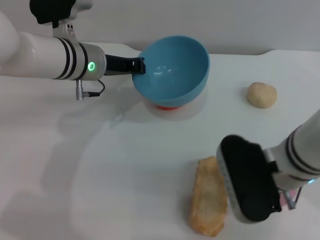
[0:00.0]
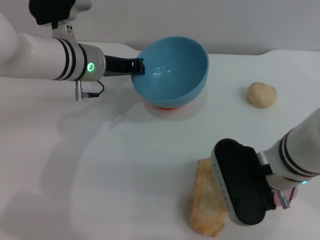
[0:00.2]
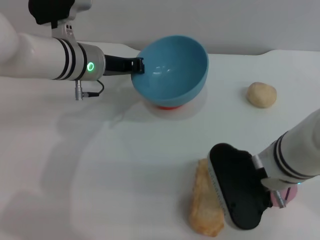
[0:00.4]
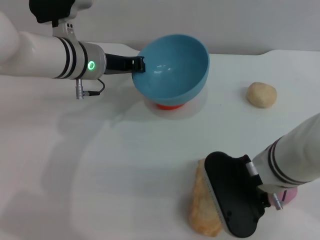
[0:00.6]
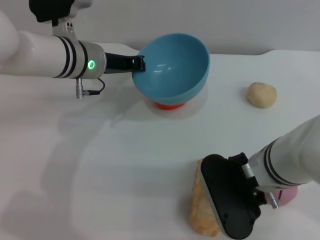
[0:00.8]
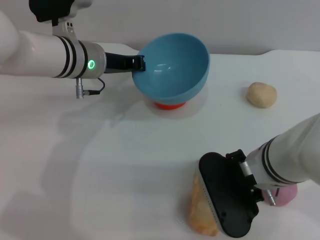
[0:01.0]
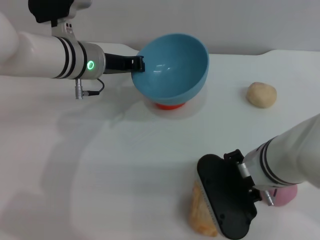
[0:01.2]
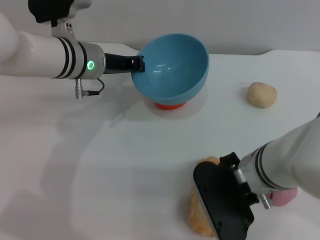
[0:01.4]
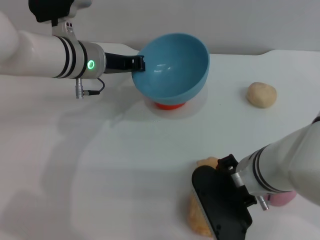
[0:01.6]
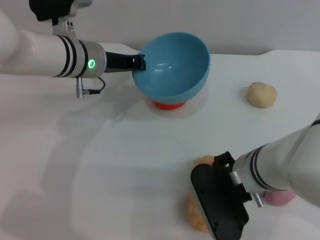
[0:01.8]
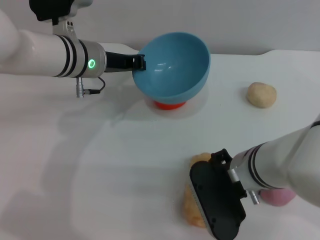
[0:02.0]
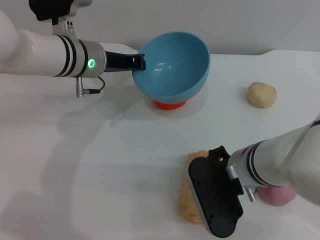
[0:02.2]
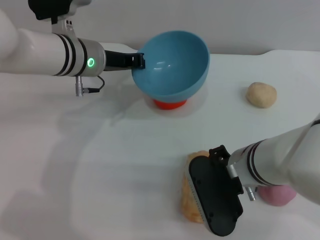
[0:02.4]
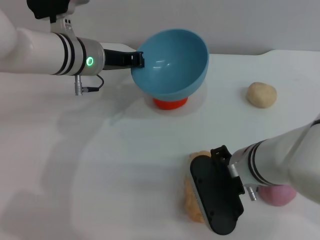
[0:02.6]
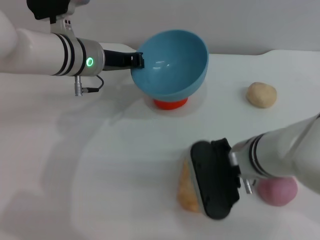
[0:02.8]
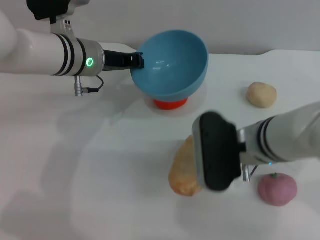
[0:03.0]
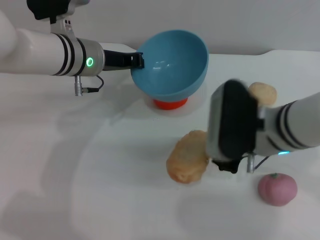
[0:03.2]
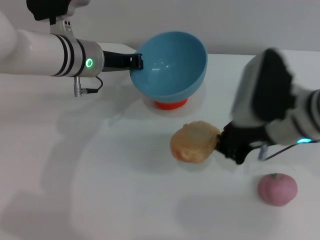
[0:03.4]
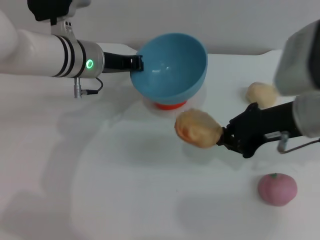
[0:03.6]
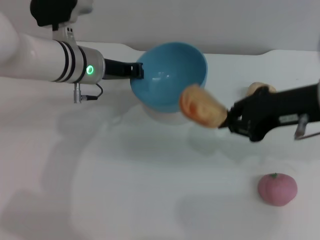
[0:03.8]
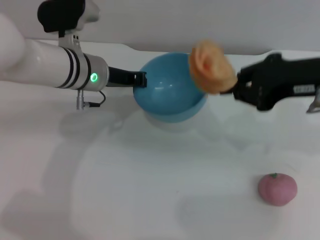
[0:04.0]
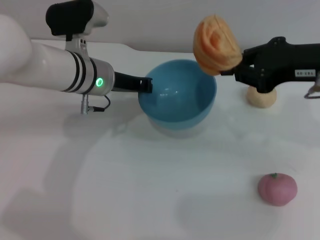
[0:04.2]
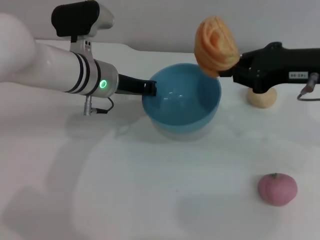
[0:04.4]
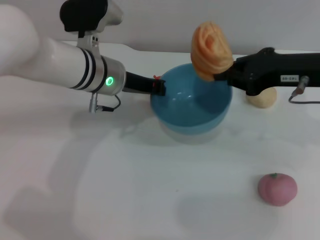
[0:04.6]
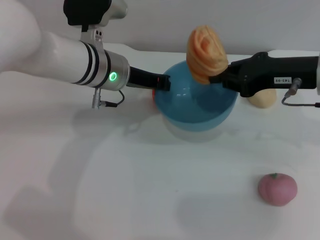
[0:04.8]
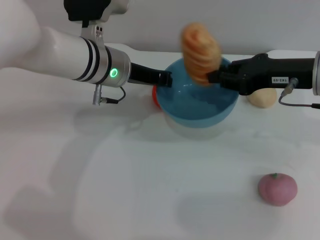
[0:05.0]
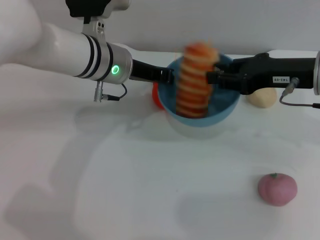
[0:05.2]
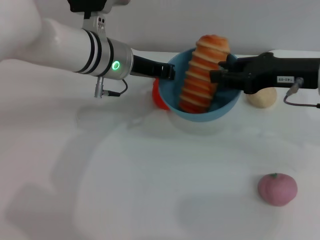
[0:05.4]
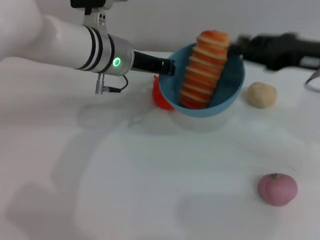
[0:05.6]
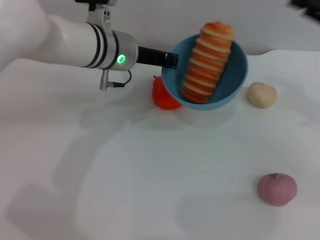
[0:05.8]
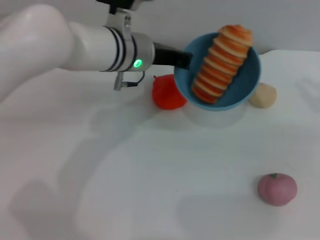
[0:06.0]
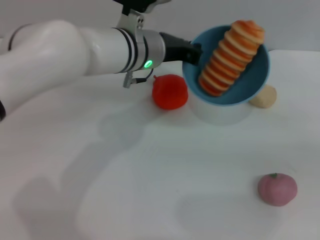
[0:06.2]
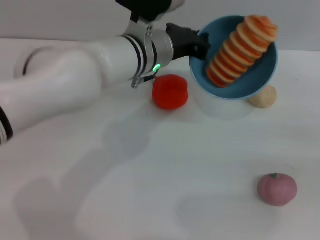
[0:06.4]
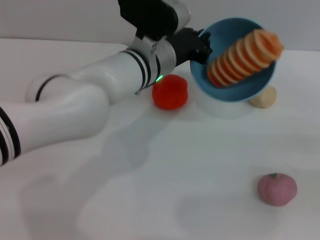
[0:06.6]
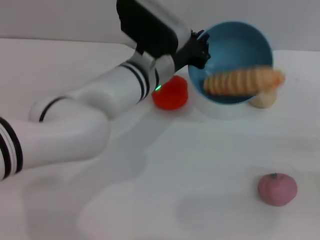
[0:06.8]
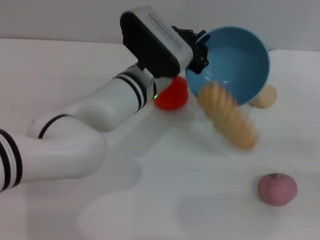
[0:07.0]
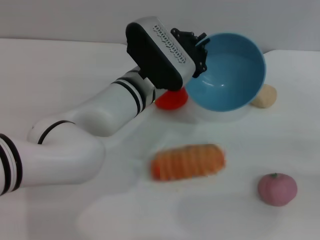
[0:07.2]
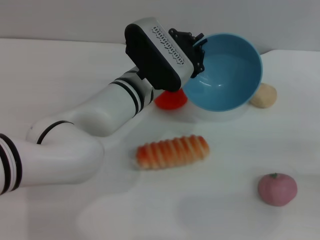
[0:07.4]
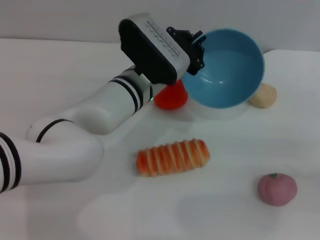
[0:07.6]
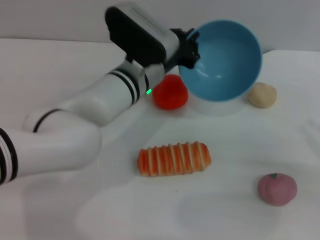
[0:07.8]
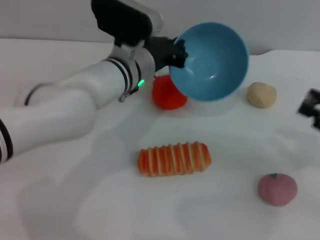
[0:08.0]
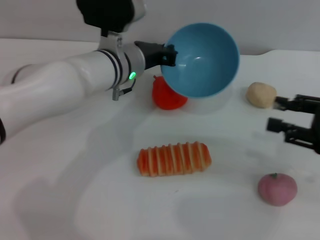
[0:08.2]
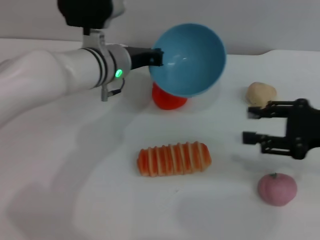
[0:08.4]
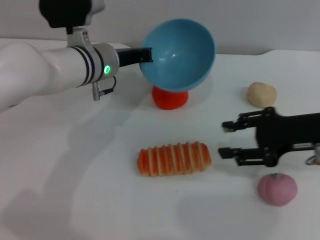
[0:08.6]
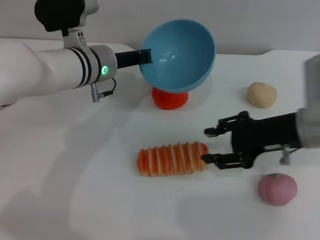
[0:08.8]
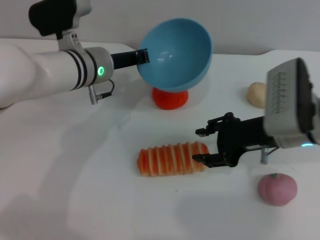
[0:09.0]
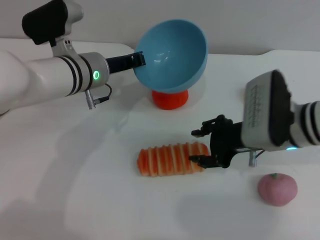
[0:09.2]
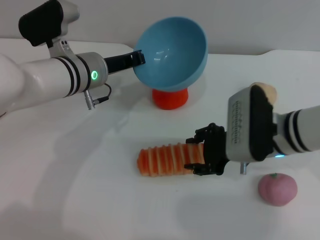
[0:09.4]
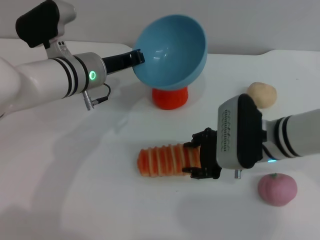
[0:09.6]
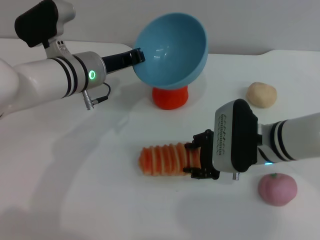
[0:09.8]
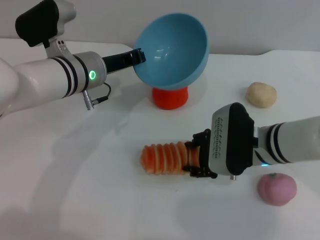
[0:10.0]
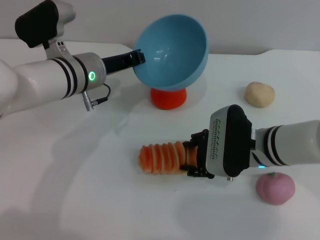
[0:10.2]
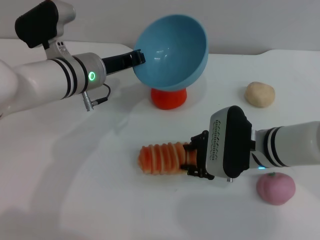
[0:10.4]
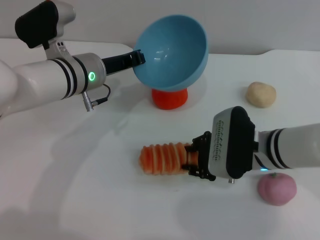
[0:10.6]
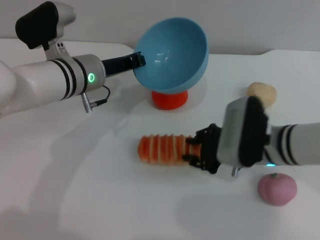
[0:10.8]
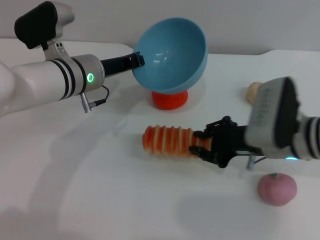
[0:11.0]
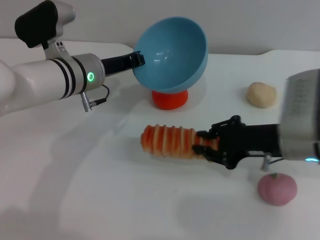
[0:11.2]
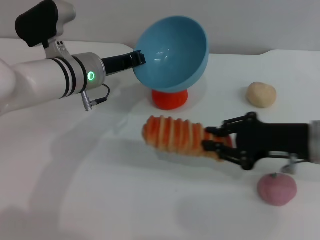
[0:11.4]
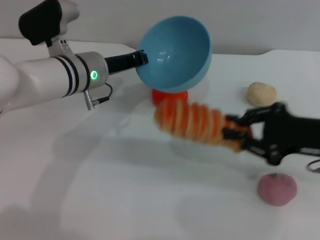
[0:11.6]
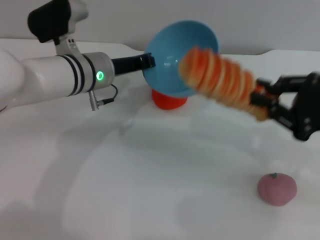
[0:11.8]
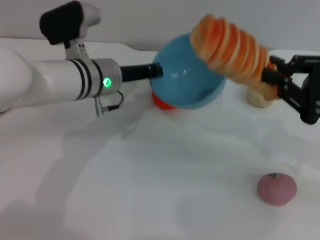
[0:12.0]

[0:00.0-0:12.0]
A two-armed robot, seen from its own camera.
Task of the whole recording: put the bread into the blue bowl and pour it out repeatedly.
Step, 0:00.0 to 0:03.6: Pick up the bread with the right gripper.
Step, 0:03.8 to 0:05.8: Place the bread into the bowl.
Step, 0:06.0 to 0:07.4: Pour the bread out of the bowl.
Step, 0:07.8 to 0:11.4: Pick up the bread with the right gripper.
0:00.0 to 0:01.6: There are only small adjustments of the grippers.
0:01.6 to 0:03.0: The right gripper closes its fingers.
0:03.0 to 0:04.4: The right gripper goes approximately 15 cm to the right and upward.
0:04.4 to 0:06.0: The left gripper is displaced to the right by approximately 5 cm. The right gripper goes some 15 cm to the right, and opens up.
0:06.0 to 0:07.6: The right gripper shifts some 10 cm downward and backward. Meanwhile the left gripper is displaced downward by about 5 cm.
0:07.6 to 0:09.0: The left gripper moves to the left, approximately 10 cm. Meanwhile the right gripper goes some 25 cm to the left and forward, and opens its fingers.
0:09.0 to 0:10.4: The right gripper moves downward, approximately 5 cm.
0:10.4 to 0:12.0: The right gripper travels to the right and upward by approximately 20 cm, and closes its fingers.

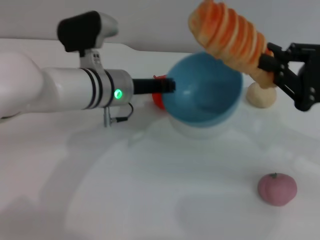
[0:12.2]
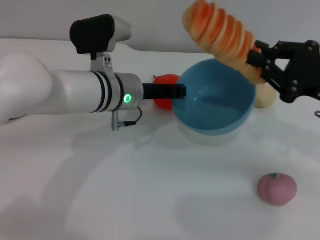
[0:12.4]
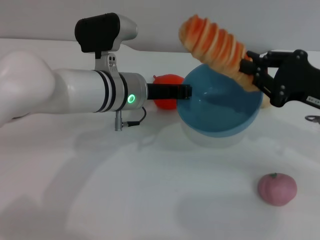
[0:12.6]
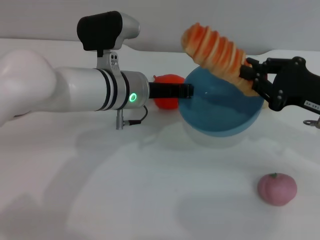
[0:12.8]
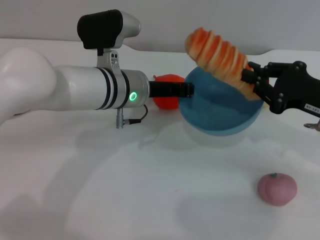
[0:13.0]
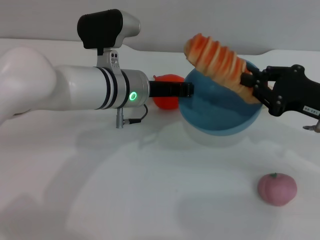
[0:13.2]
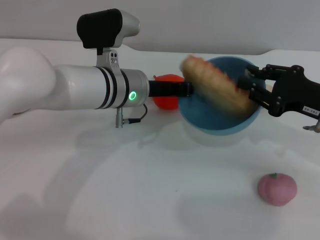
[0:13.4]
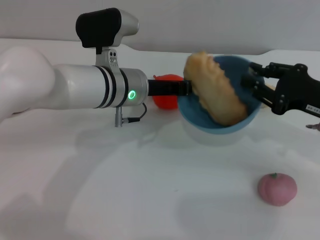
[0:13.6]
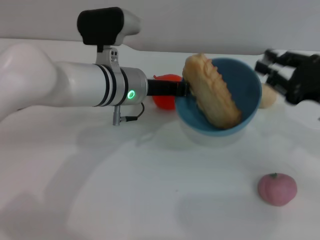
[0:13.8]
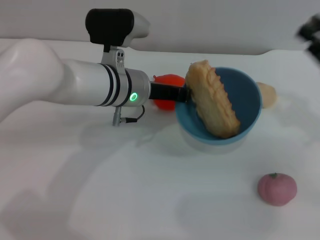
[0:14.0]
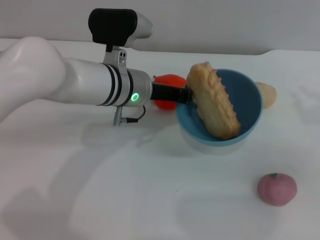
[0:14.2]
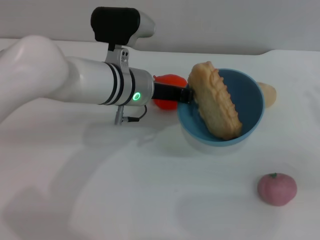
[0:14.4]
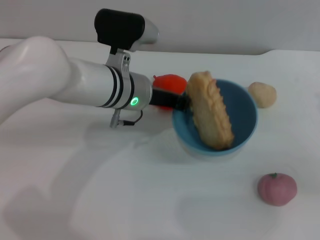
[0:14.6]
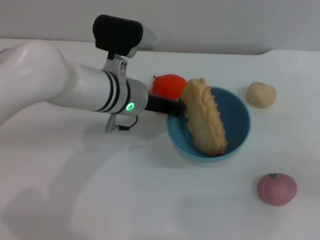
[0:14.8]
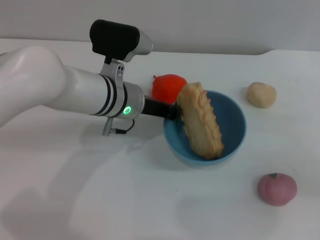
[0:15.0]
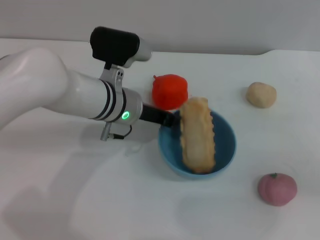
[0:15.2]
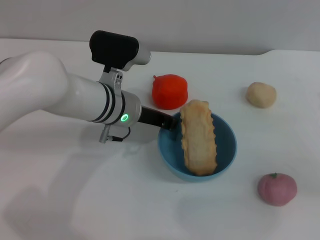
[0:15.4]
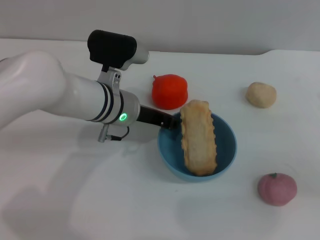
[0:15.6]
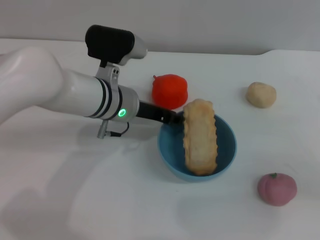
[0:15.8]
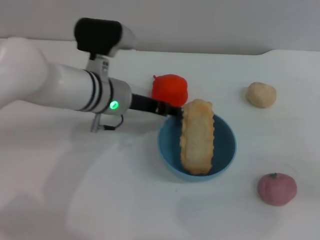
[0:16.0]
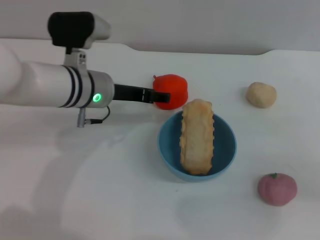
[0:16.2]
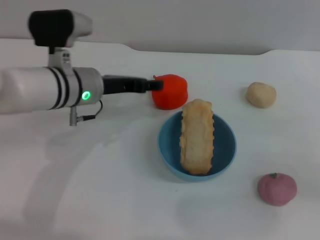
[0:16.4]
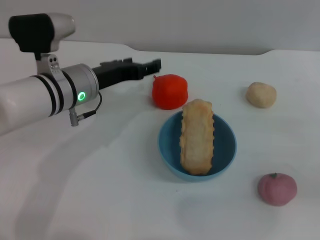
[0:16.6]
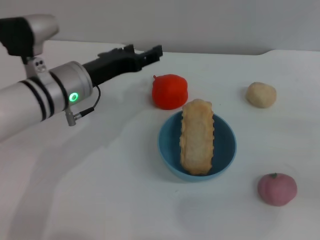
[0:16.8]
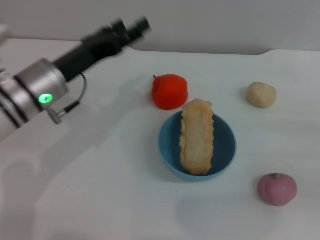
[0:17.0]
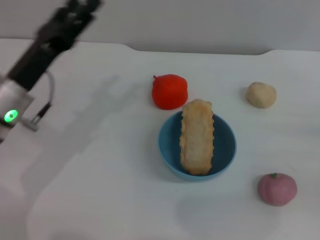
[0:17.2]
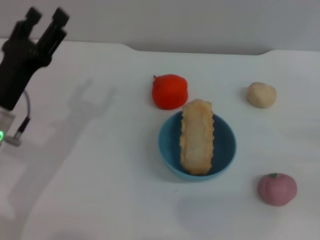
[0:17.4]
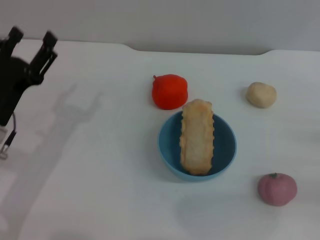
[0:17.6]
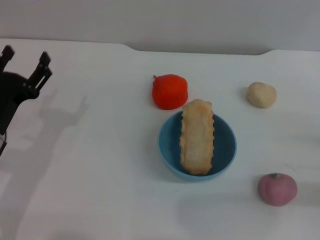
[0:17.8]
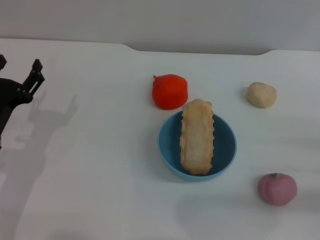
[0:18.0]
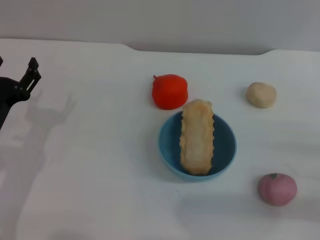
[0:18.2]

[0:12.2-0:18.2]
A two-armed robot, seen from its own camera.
Task of the whole recording: put the bread into the blue bowl and pour it out repeatedly.
Step, 0:12.2 to 0:13.8: Place the bread into the bowl.
Step, 0:14.0 to 0:16.4: Place the bowl on the table.
0:12.2 to 0:13.8: There are only small adjustments of the grippers.
0:13.8 to 0:15.2: The right gripper heads to the right, covering some 10 cm.
0:15.2 to 0:16.6: The left gripper travels to the left by some 5 cm, and opens.
0:16.6 to 0:18.2: The right gripper shifts some 5 cm downward; the left gripper moves to the left, backward and downward, about 15 cm.
